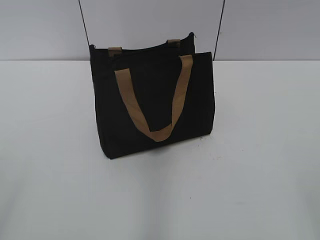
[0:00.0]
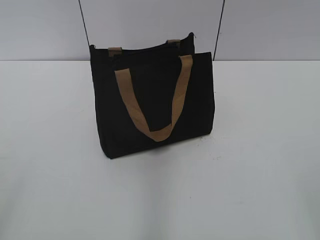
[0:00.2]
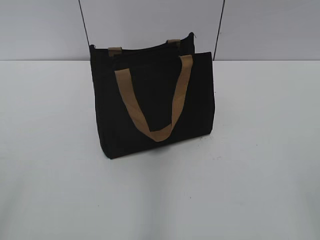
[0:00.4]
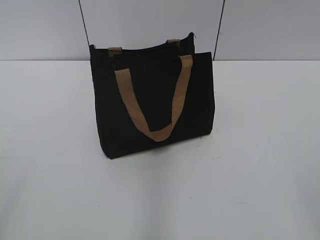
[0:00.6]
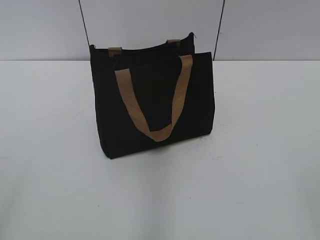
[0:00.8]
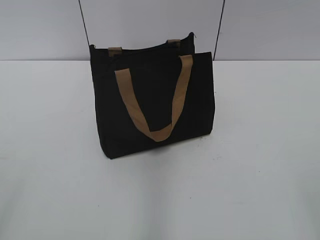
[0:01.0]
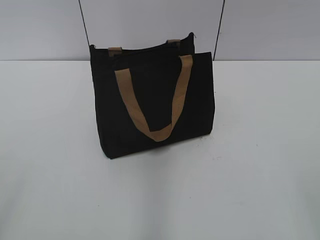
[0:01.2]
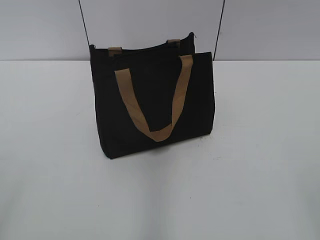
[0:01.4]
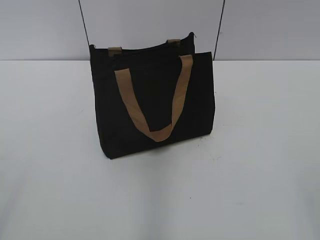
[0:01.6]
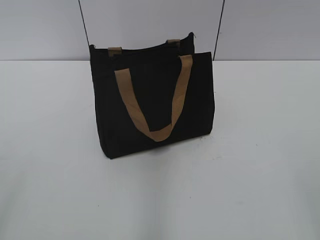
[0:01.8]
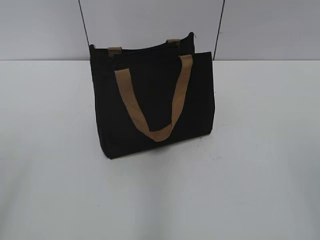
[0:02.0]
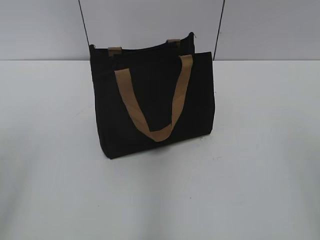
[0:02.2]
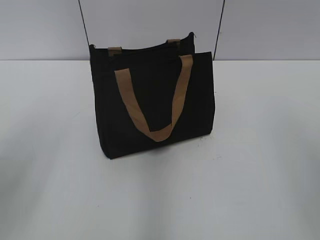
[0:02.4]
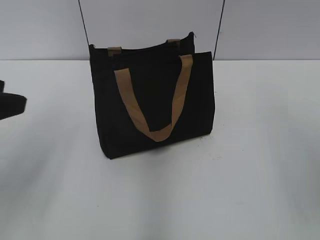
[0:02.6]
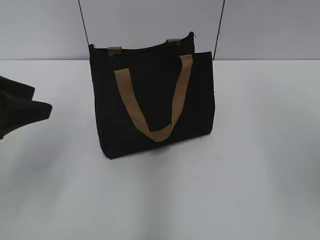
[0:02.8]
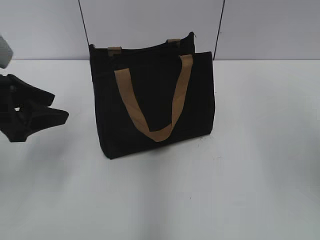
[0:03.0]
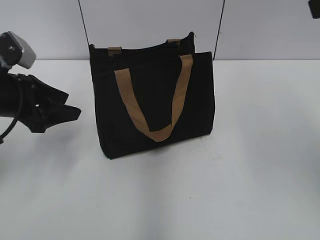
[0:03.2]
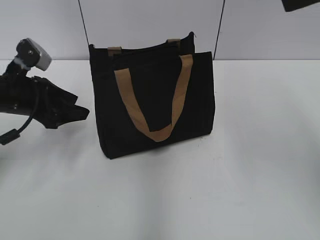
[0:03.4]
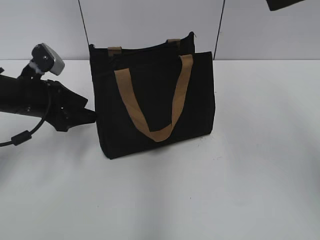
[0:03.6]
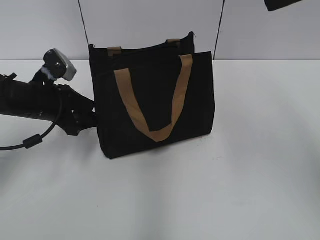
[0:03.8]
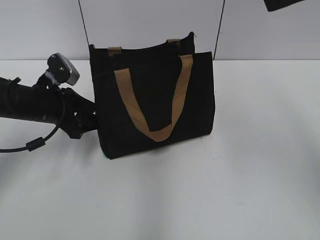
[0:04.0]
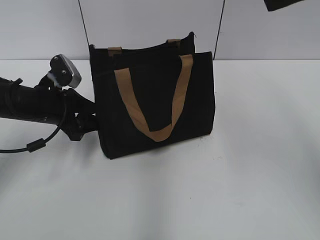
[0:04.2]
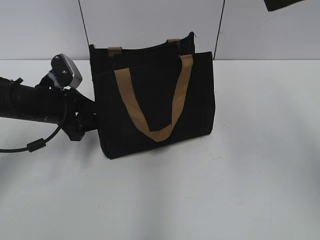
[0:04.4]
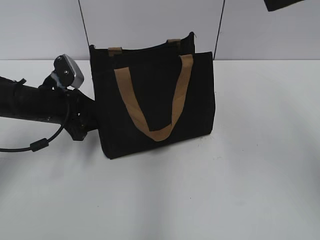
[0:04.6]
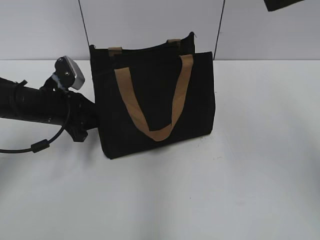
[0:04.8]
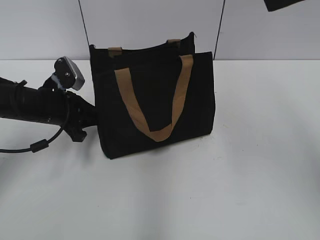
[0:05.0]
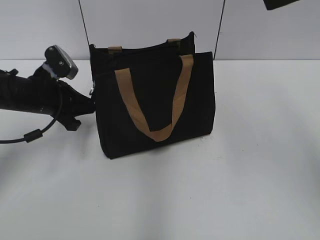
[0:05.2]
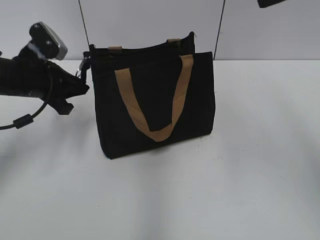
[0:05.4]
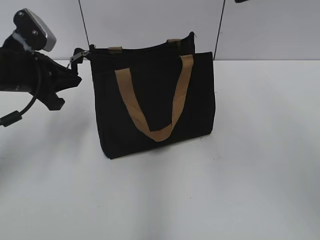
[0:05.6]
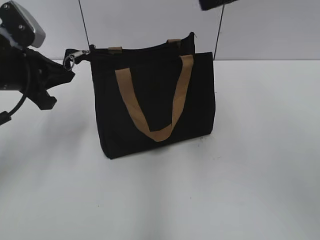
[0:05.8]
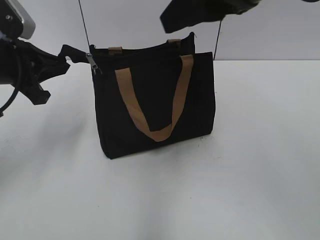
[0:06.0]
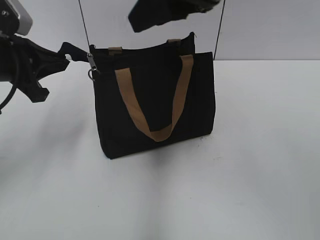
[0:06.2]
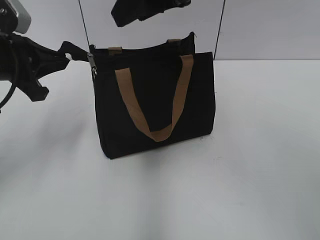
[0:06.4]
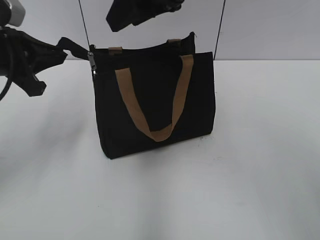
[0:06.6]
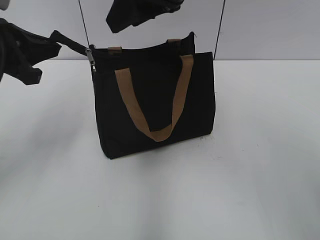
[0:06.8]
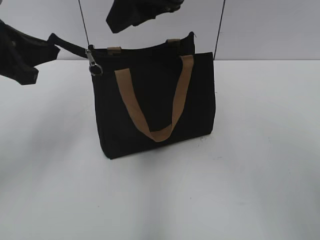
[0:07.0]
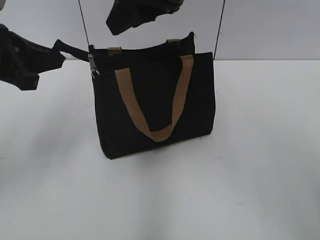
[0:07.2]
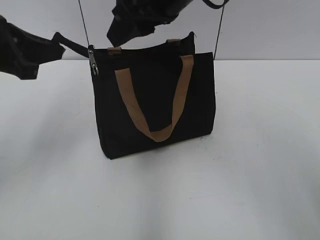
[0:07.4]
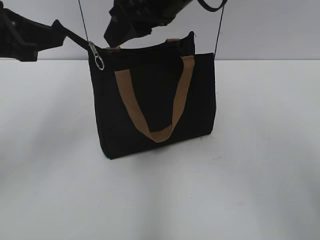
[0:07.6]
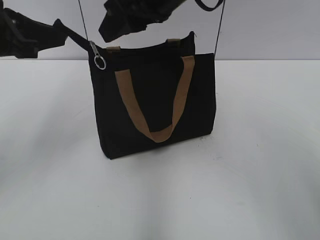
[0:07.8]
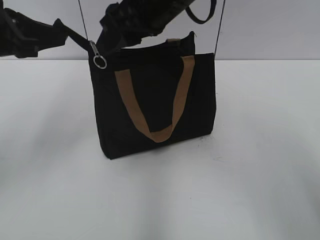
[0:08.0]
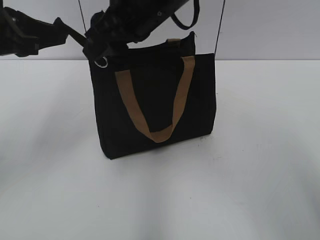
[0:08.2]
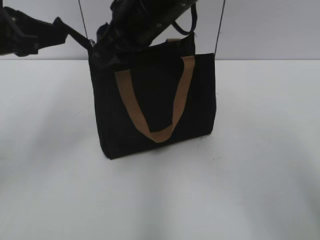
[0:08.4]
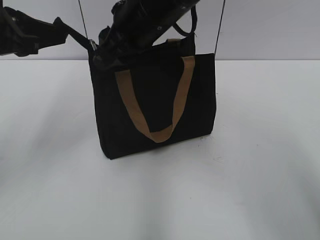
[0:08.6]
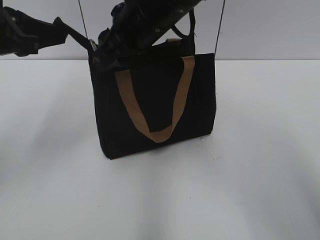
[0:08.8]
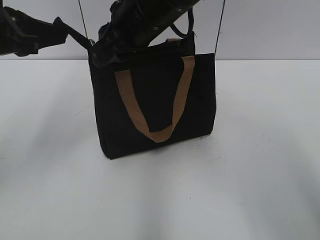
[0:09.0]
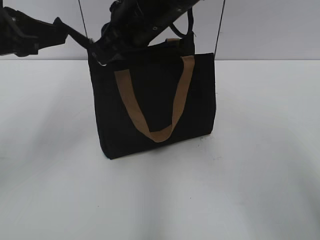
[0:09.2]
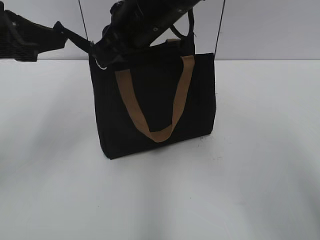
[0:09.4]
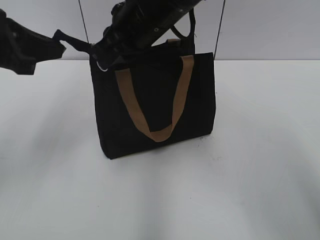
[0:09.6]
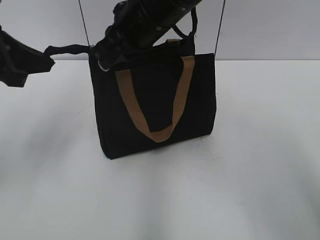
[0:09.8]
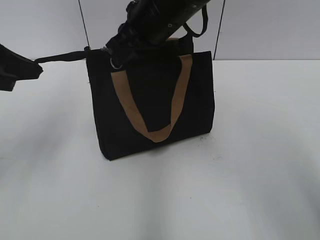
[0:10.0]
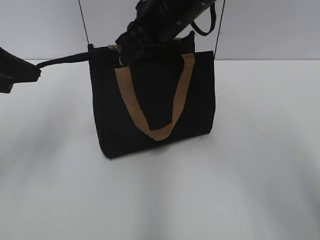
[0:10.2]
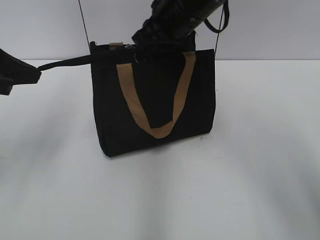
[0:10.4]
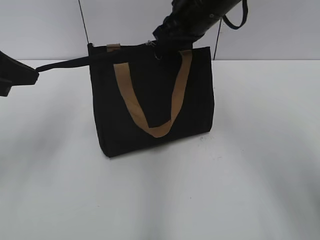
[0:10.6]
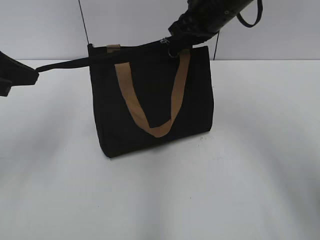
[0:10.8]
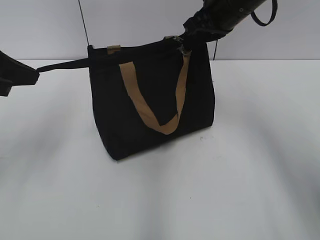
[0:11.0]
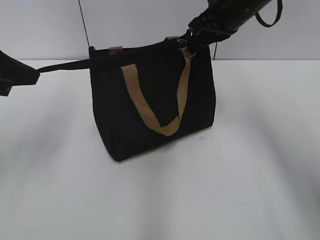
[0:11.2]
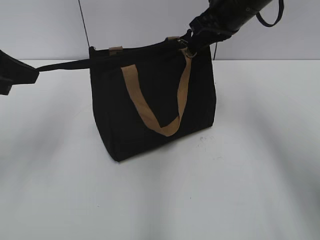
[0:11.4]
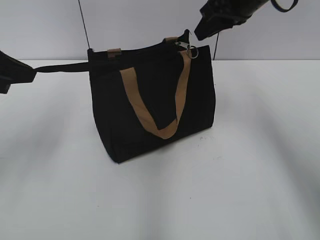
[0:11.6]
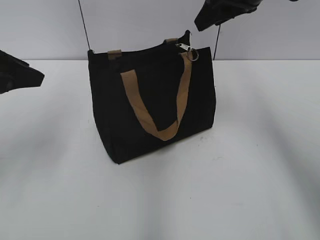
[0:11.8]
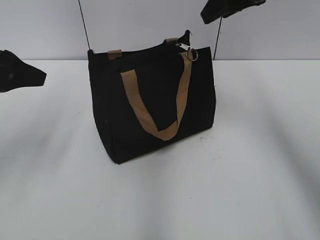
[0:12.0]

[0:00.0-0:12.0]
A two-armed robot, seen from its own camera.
Step, 0:00.0 to 0:11.4: Zip up the bag with your right hand.
0:01.6 to 0:03.0: The left gripper shifts some 25 cm forward.
0:03.0 to 0:04.4: The left gripper shifts some 15 cm forward and downward.
0:04.4 to 0:06.0: The right gripper moves to the left, about 10 cm. Meanwhile the left gripper shifts approximately 10 cm upward, and closes.
0:06.0 to 0:07.6: The left gripper travels upward by about 5 cm. Meanwhile the right gripper travels to the left and forward by roughly 10 cm.
0:07.6 to 0:09.0: The right gripper changes place by approximately 5 cm.
0:09.0 to 0:10.4: The right gripper shifts by about 5 cm, and closes its fingers.
0:10.4 to 0:12.0: The left gripper opens. Meanwhile the right gripper is displaced to the right and upward by roughly 15 cm, and opens up.

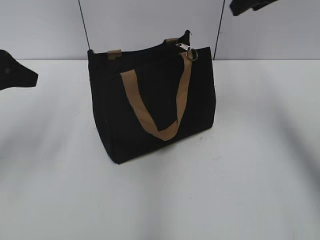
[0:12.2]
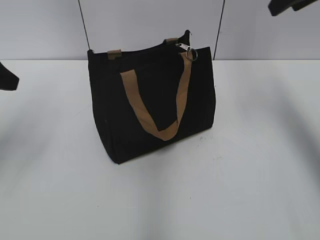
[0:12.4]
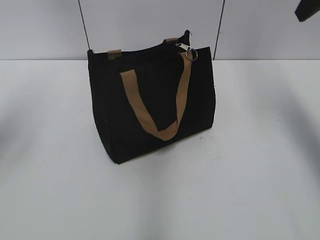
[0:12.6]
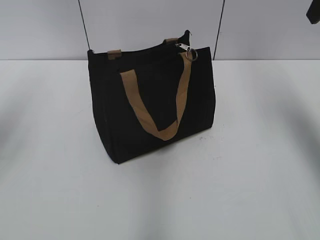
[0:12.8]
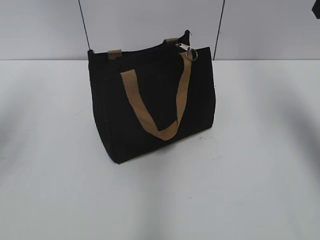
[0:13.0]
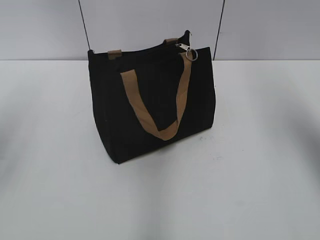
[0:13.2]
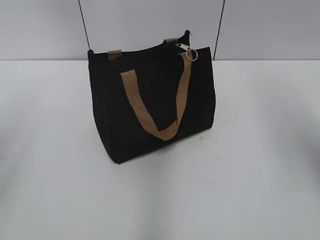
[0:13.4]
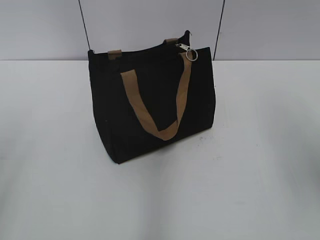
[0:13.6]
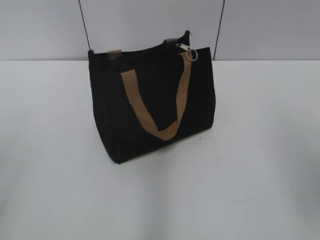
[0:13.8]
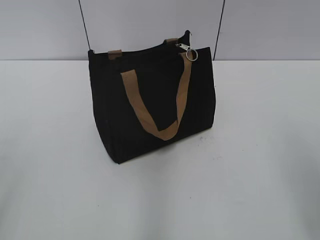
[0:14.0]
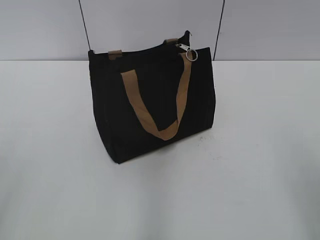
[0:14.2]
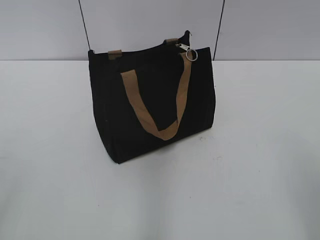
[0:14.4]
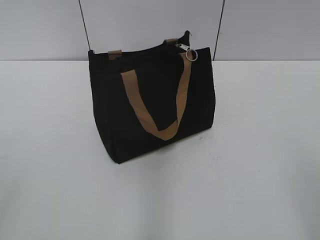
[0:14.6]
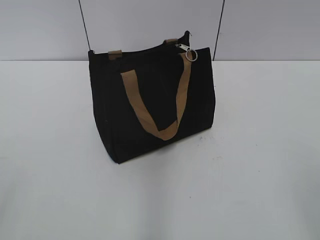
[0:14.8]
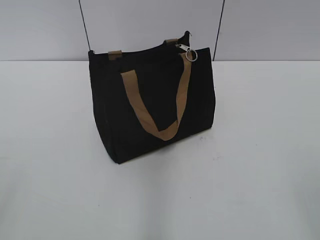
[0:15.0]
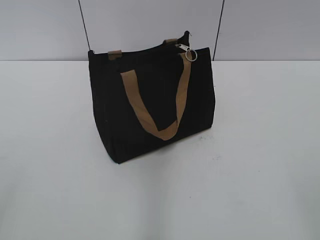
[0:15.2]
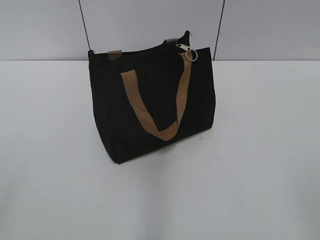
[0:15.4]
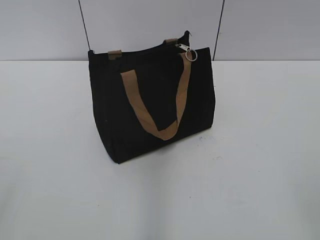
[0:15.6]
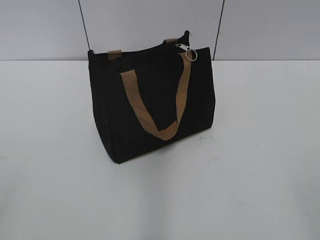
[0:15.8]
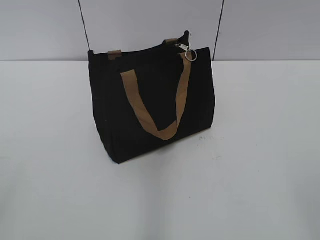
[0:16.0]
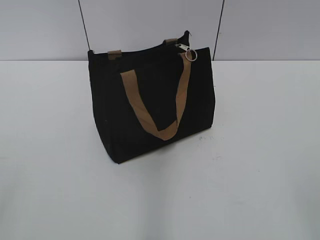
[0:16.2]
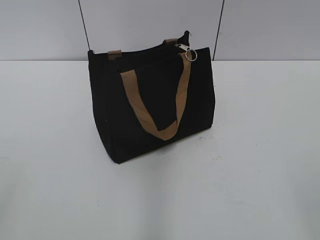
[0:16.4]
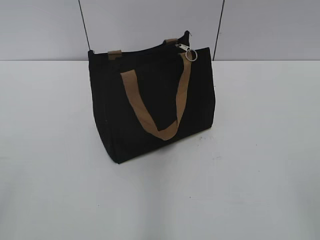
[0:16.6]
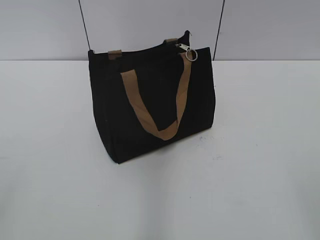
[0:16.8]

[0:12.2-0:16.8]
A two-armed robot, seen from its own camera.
0:12.2 to 0:13.8: The two grippers go about 20 cm backward.
0:15.2 to 0:16.8: The two grippers keep their place.

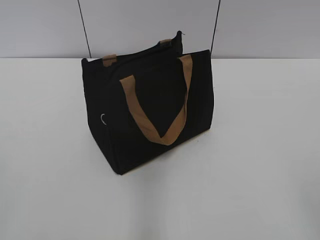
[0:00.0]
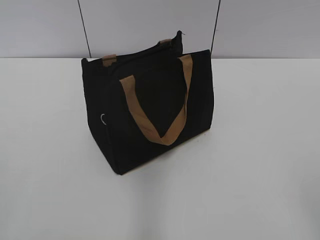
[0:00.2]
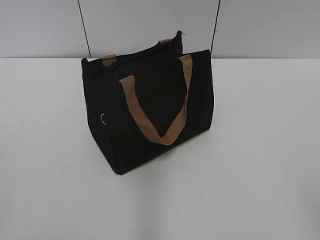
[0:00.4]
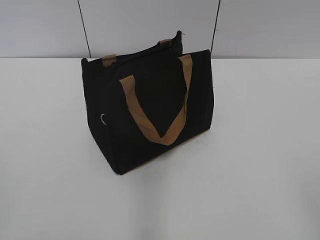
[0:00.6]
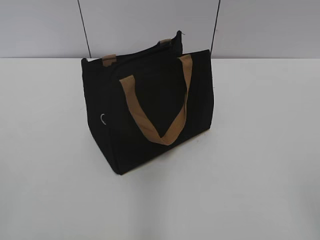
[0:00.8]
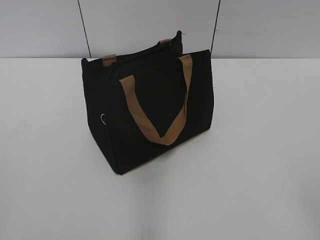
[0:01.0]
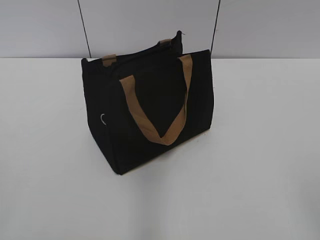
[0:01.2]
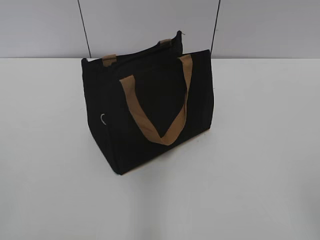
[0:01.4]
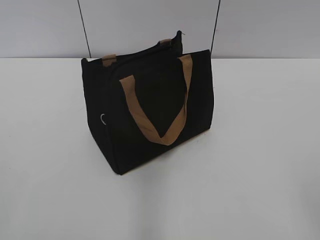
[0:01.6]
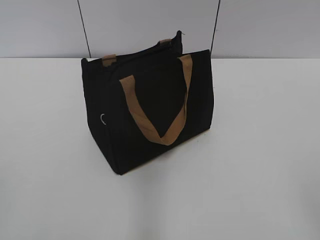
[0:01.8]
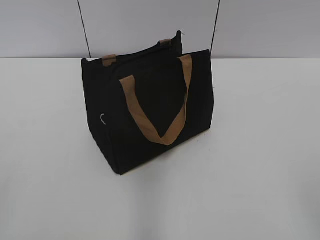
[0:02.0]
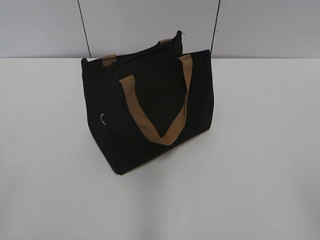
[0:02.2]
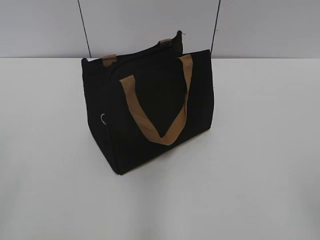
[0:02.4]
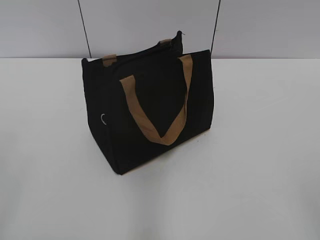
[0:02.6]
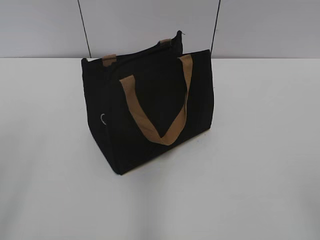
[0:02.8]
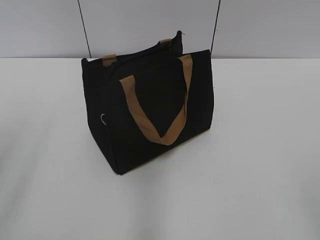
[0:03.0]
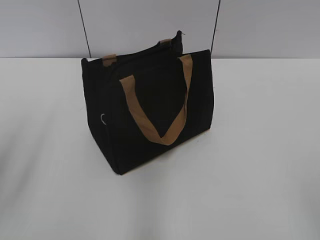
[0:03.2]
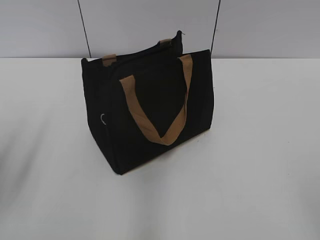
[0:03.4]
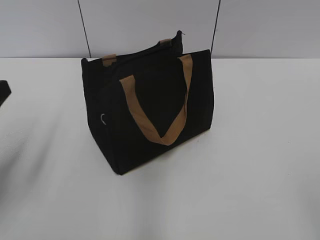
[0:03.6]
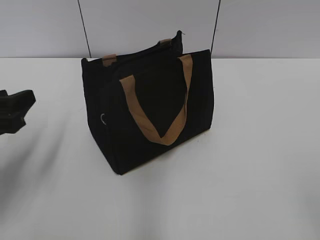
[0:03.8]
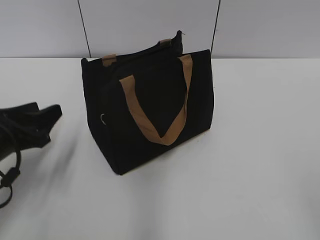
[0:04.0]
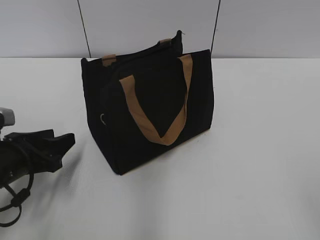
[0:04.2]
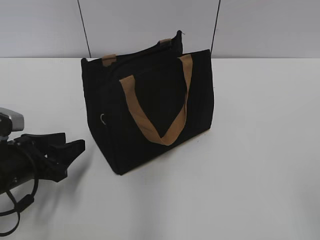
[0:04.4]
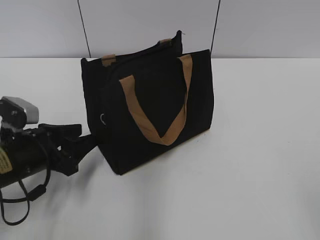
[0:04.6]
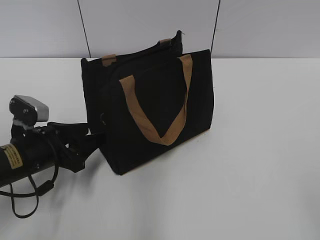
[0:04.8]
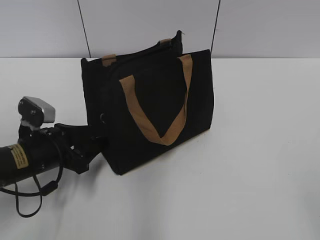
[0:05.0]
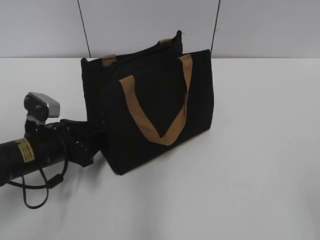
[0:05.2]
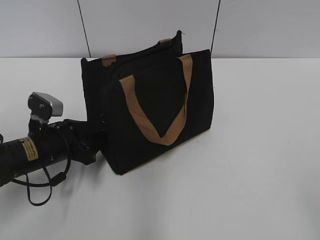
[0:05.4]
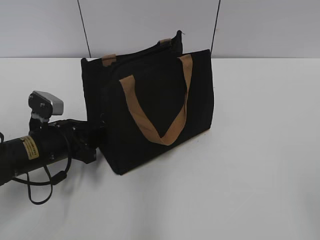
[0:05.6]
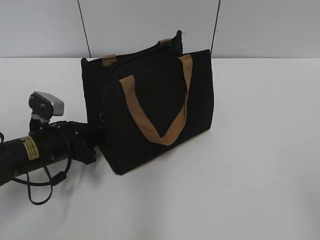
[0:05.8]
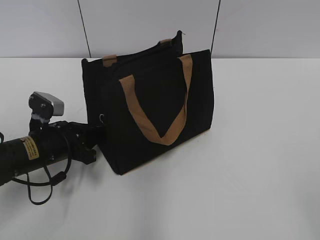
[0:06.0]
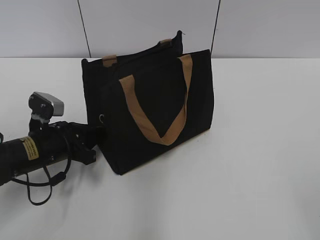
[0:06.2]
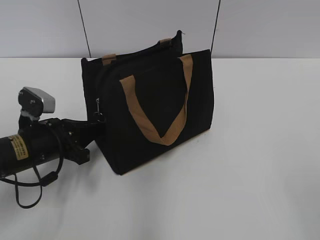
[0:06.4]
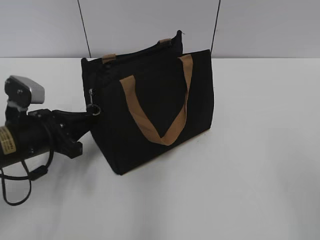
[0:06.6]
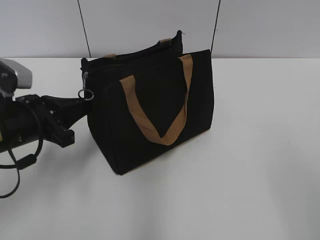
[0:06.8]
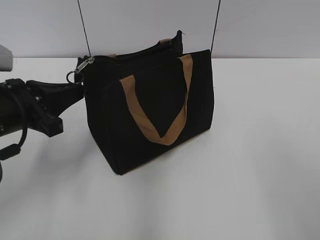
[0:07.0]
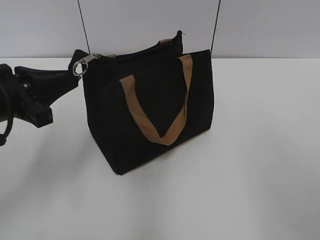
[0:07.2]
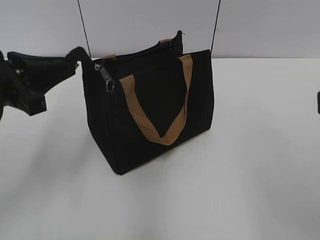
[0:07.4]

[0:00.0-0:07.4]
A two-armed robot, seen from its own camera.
0:03.0 to 0:04.4: The left gripper goes some 25 cm downward and forward.
0:04.4 to 0:06.0: The left gripper moves forward, roughly 5 cm, and closes its fingers.
0:06.0 to 0:07.4: The left gripper goes roughly 15 cm upward, while the right gripper is displaced forward and upward by some 15 cm.
